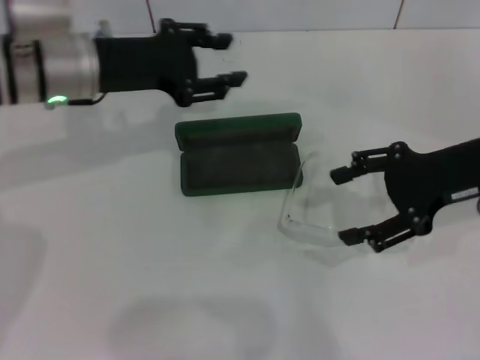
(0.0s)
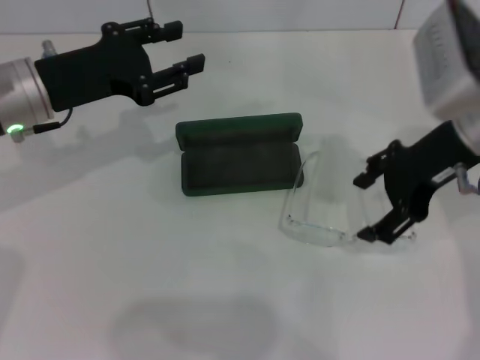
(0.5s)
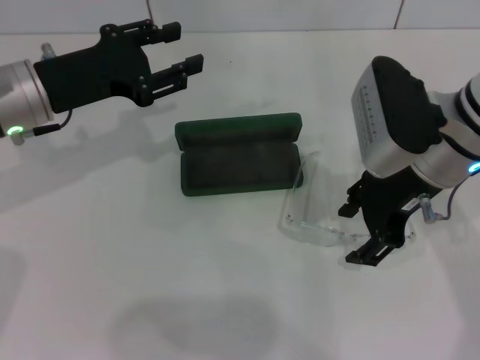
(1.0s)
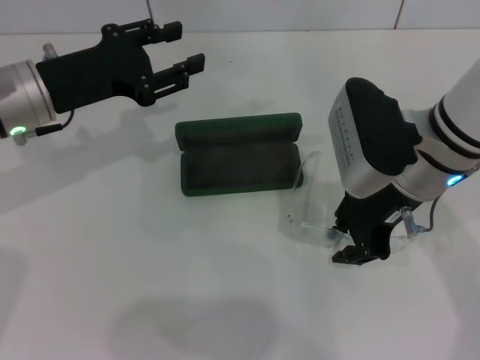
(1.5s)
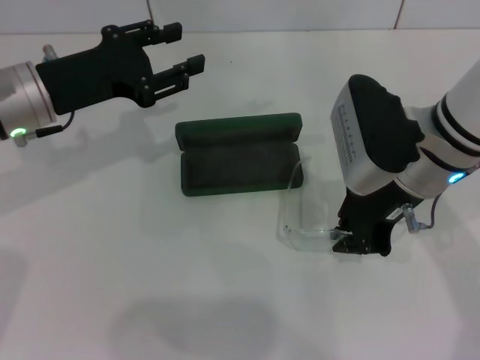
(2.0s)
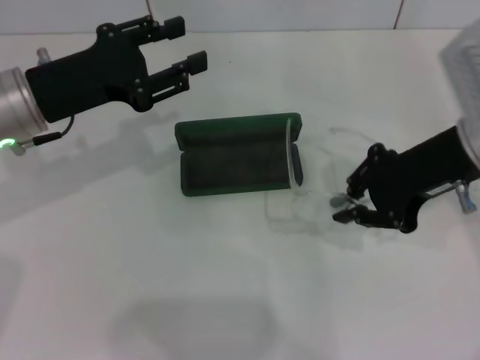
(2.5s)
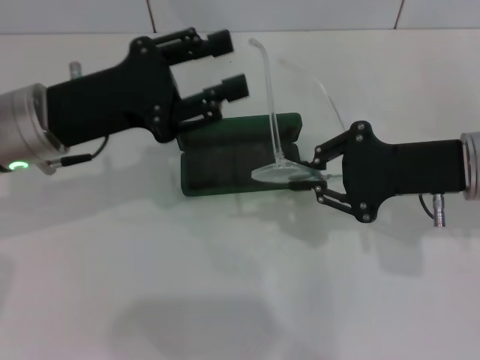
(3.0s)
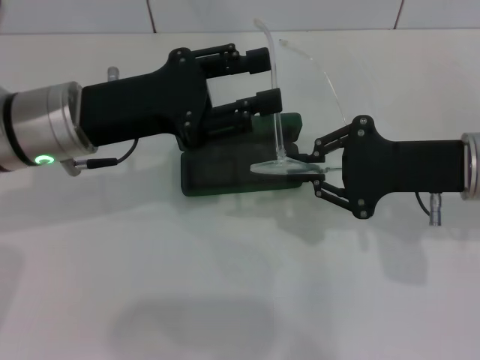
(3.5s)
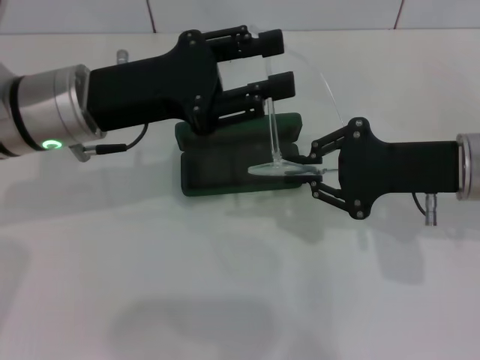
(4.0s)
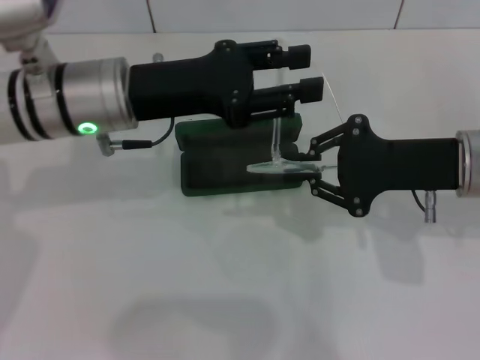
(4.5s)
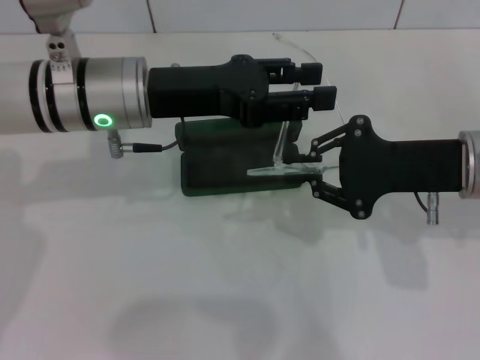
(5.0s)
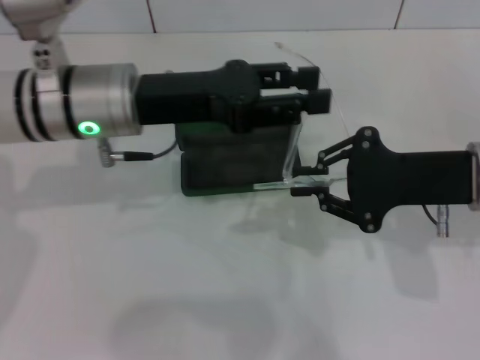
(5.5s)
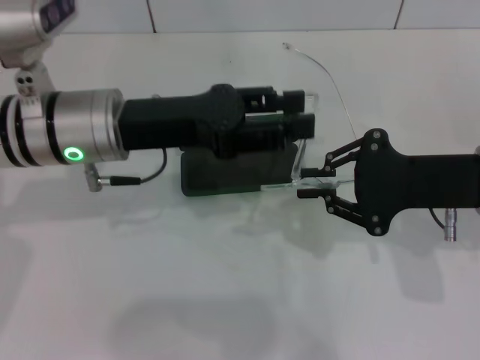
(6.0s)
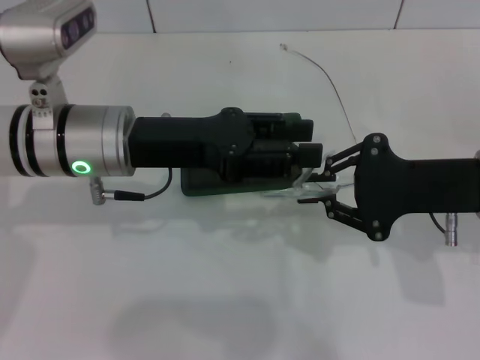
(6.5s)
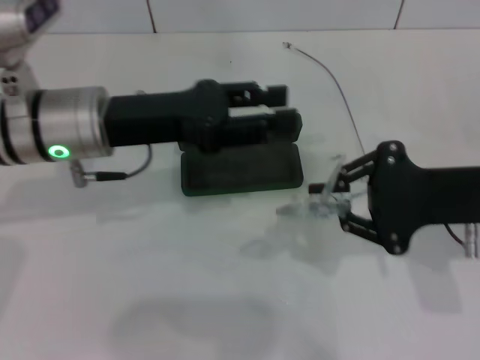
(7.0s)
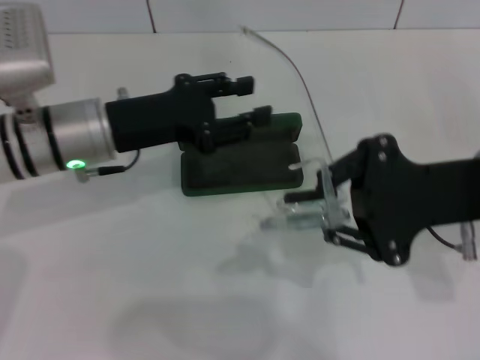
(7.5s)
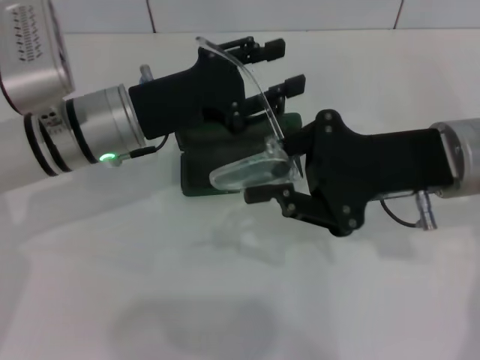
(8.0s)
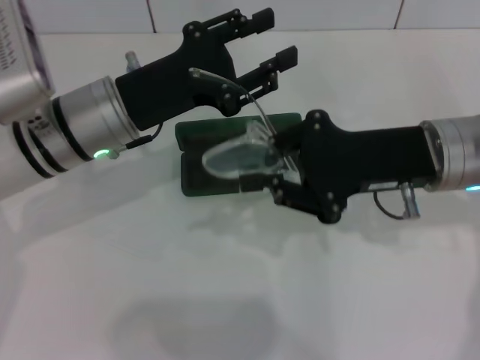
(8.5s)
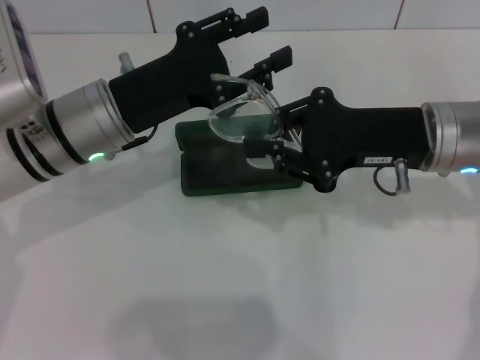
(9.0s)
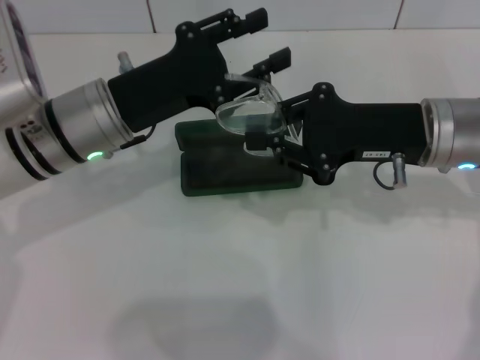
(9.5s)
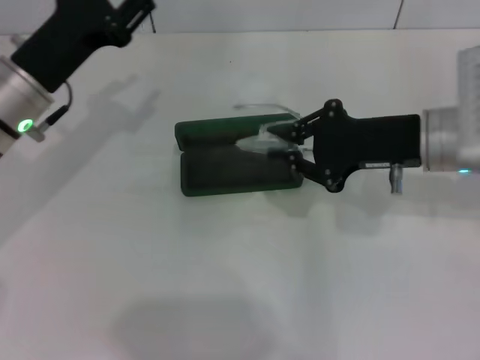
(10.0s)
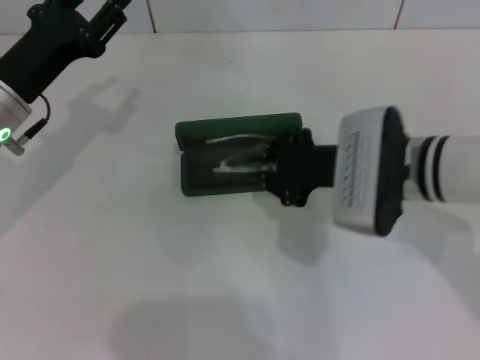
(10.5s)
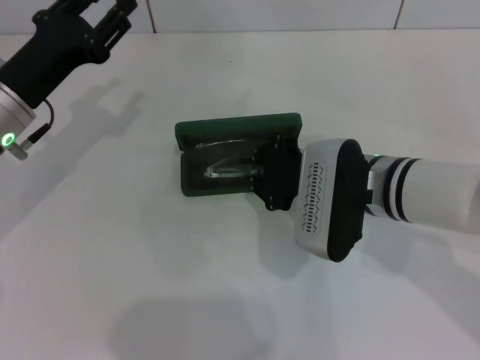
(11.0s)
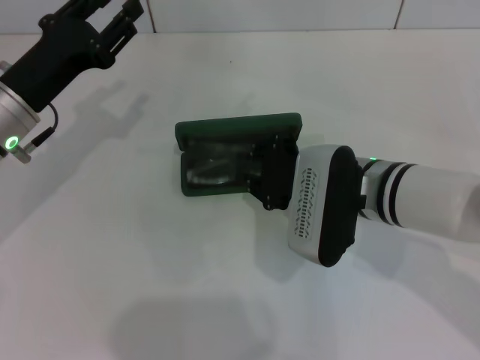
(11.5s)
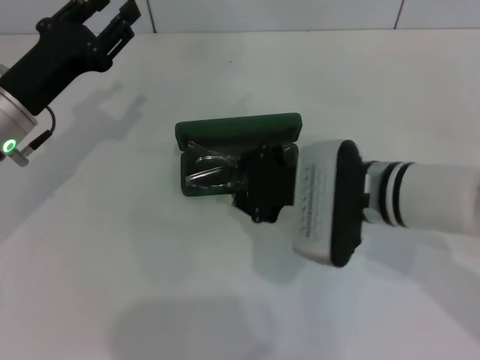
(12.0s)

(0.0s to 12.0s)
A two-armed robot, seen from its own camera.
Step, 0.0s - 1.5s: Grab the eyeglass frame with your right hand.
Step, 2.0s - 9.5s: Fold the frame with your left hand.
Step, 10.0s - 12.0s: Put the glasses into the case with your right hand.
0.0s - 2.0s: The left gripper shifts by some 5 cm; the right gripper goes about 10 cm to the left, and closes its fingers.
2.0s - 4.0s: Both grippers travel together to the right, approximately 5 cm.
6.0s - 8.0s: The right gripper changes place by about 5 cm.
8.0s - 10.0s: The left gripper travels to the left by about 5 cm.
10.0s - 12.0s: The right gripper shifts approximately 10 cm to the left.

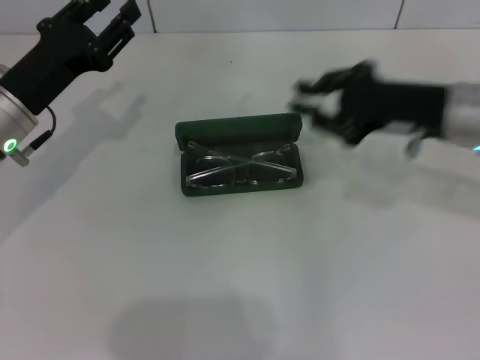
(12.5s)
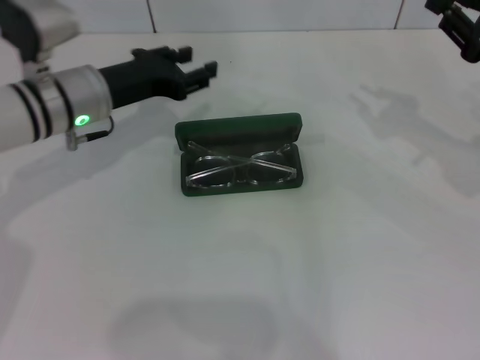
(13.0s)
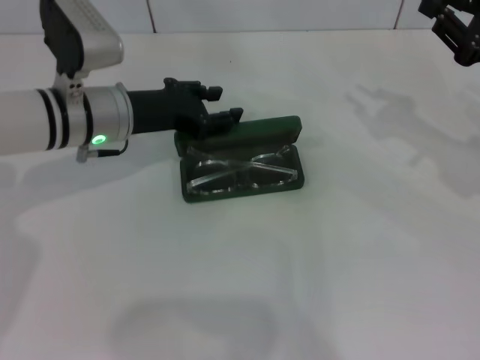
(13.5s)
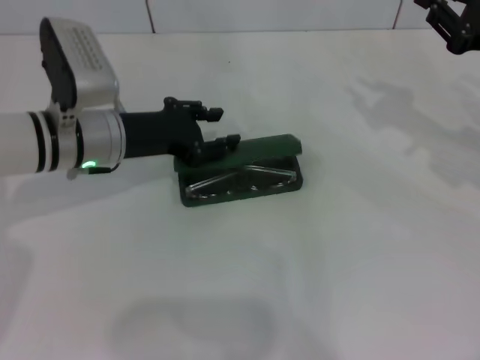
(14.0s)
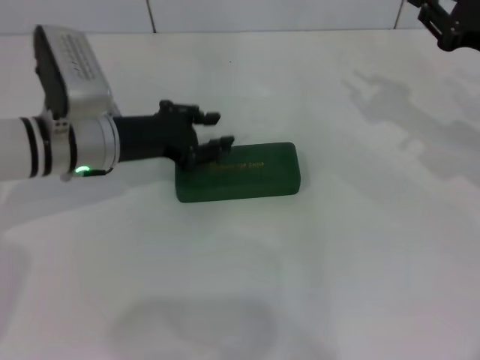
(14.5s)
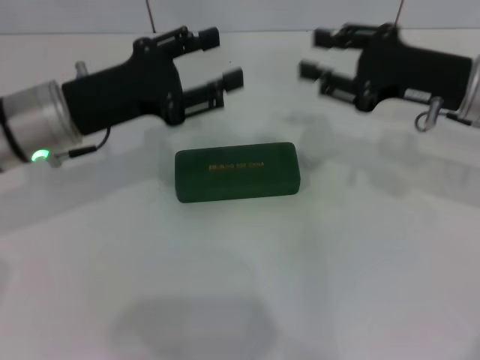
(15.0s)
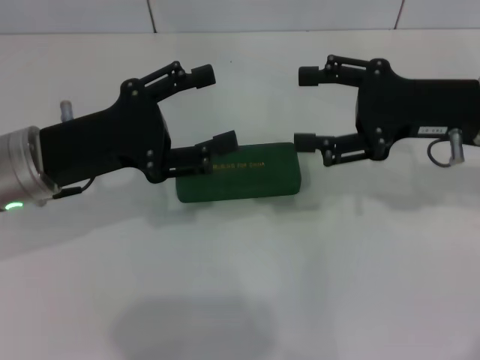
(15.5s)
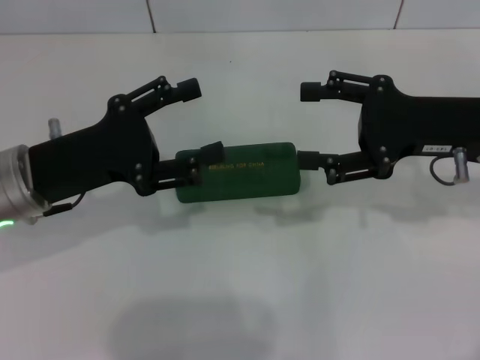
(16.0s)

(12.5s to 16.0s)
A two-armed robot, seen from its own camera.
Step, 12.5s - 14.0s: Close the glasses case with your left hand.
12.5s - 14.5s: Both grippers move to the right, roughly 5 cm.
14.5s - 16.0s: The right gripper is displaced to the left by roughly 5 cm, and opens its fingers. Meanwhile the left gripper moves backward, some 10 cm, and opens its fingers.
